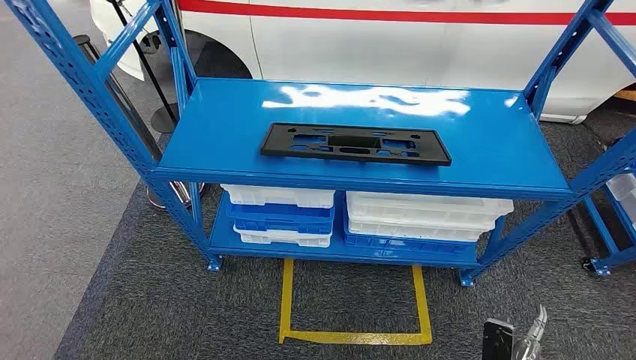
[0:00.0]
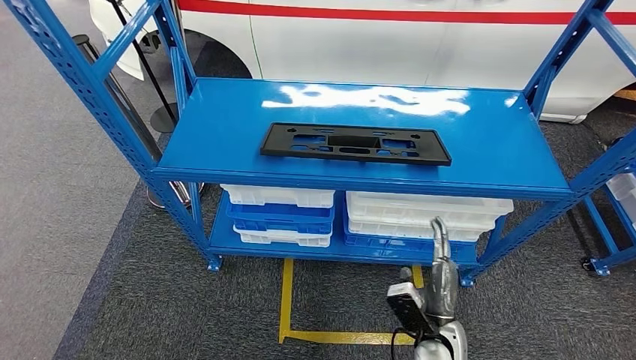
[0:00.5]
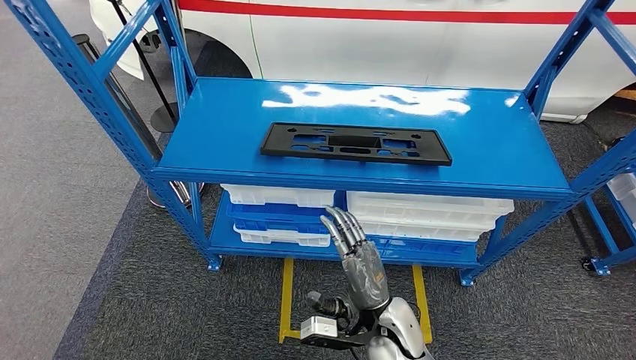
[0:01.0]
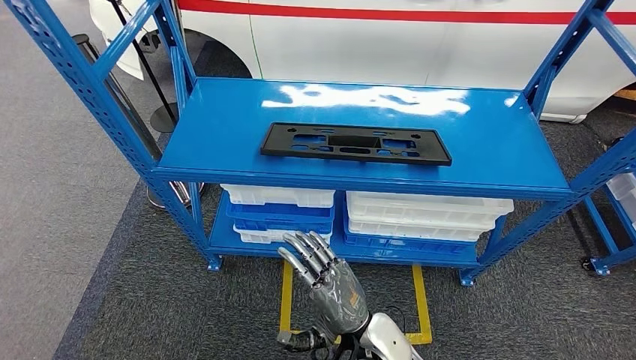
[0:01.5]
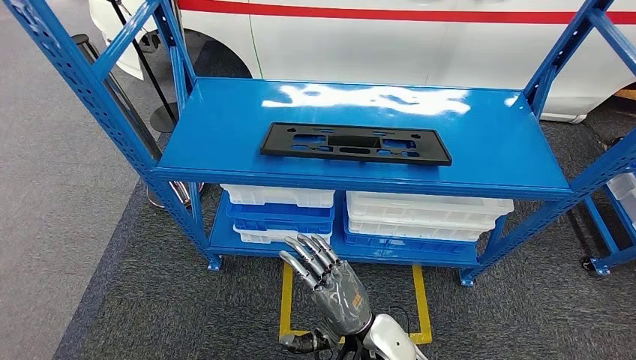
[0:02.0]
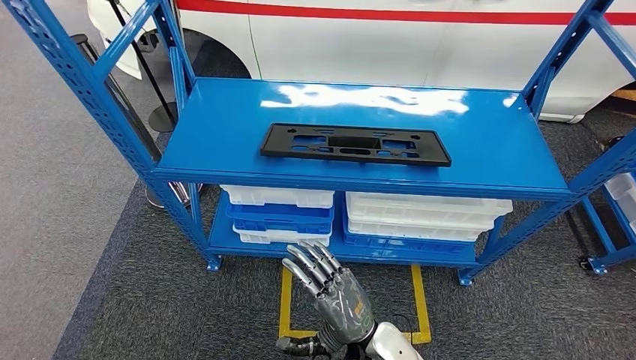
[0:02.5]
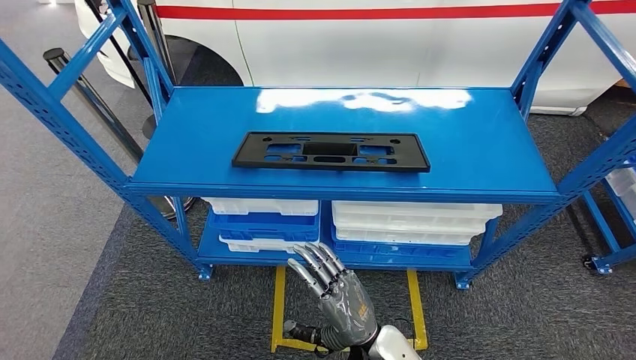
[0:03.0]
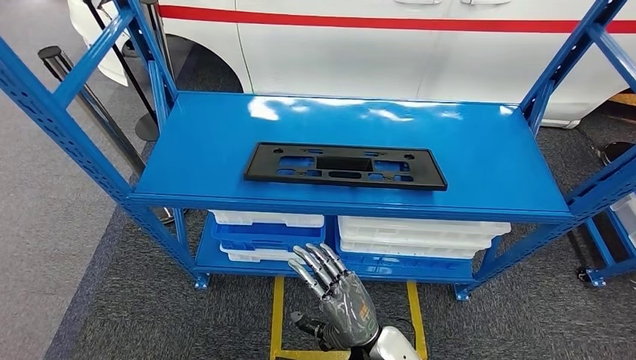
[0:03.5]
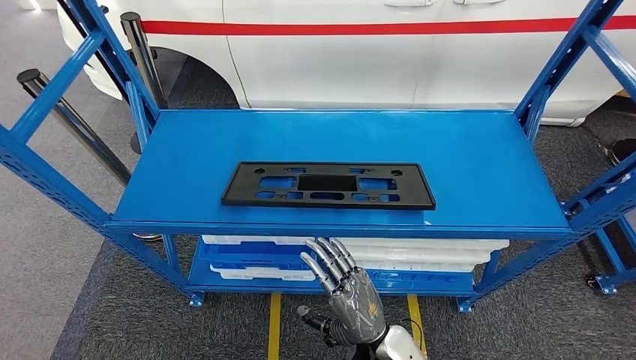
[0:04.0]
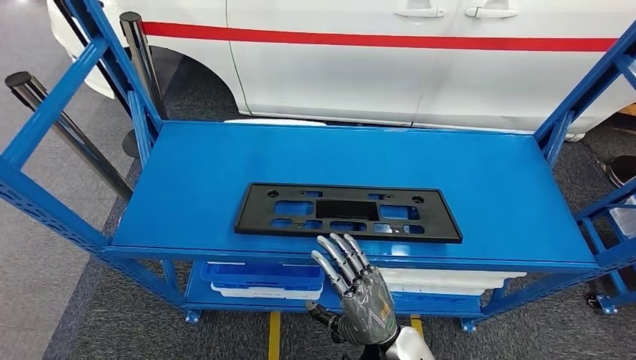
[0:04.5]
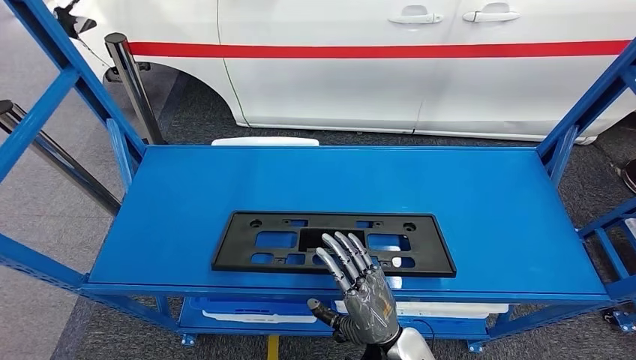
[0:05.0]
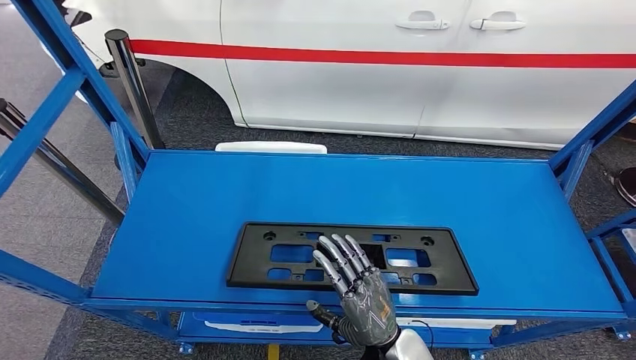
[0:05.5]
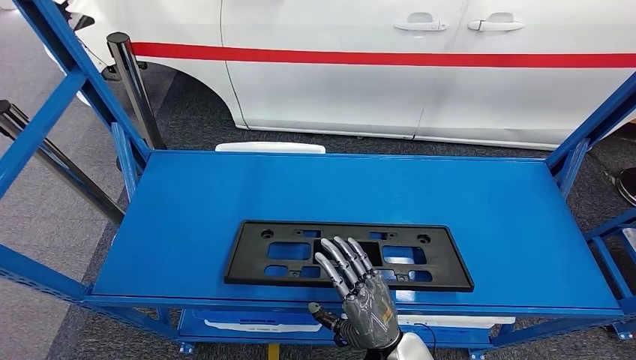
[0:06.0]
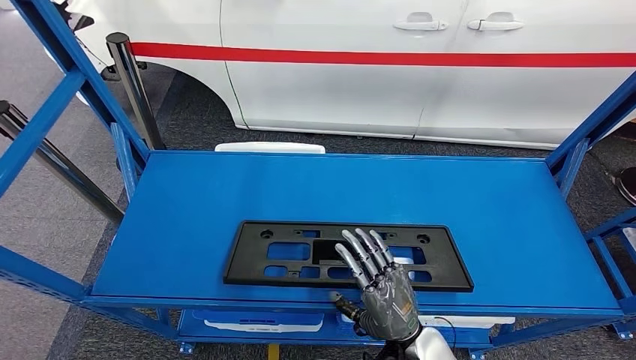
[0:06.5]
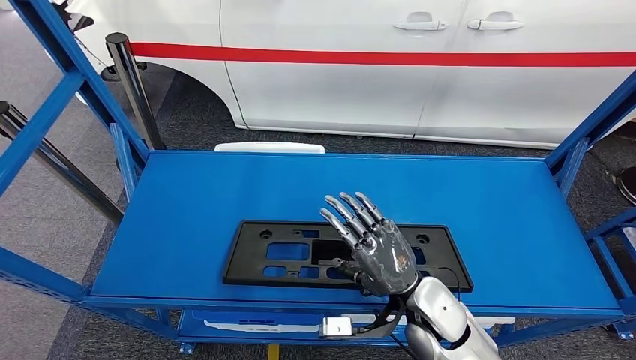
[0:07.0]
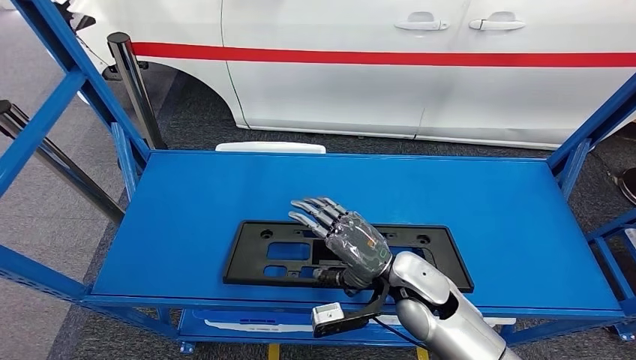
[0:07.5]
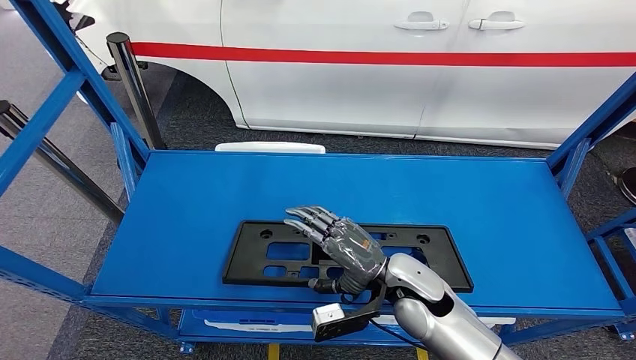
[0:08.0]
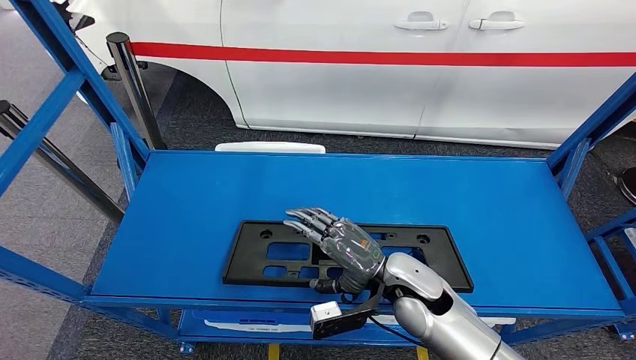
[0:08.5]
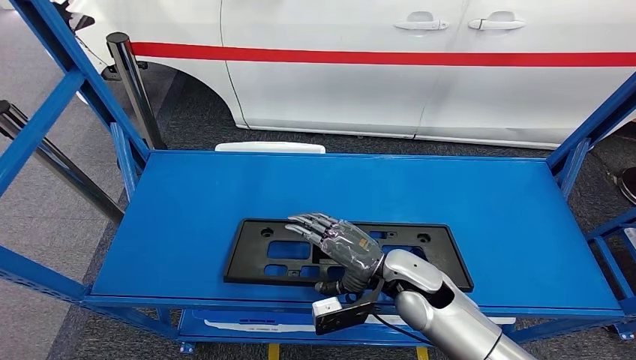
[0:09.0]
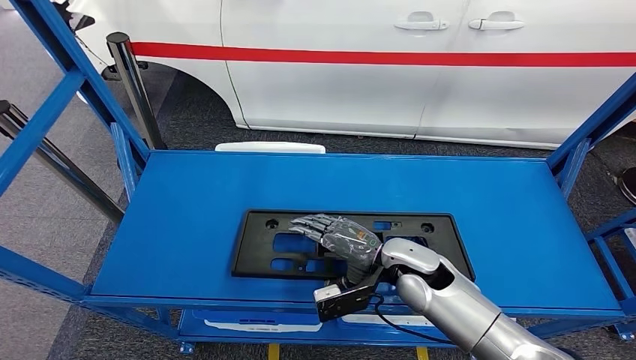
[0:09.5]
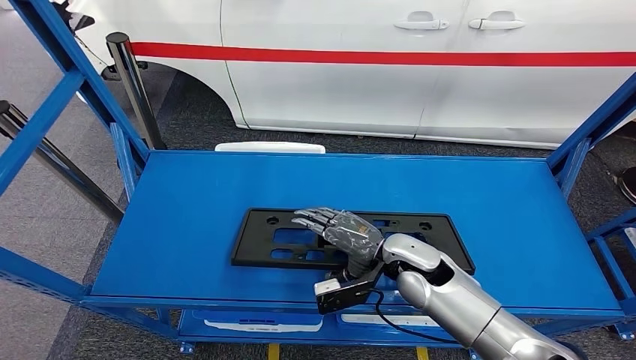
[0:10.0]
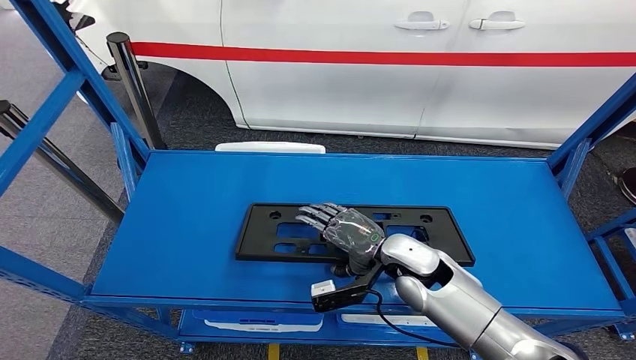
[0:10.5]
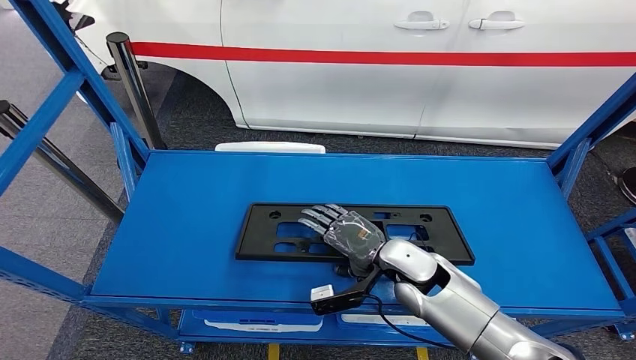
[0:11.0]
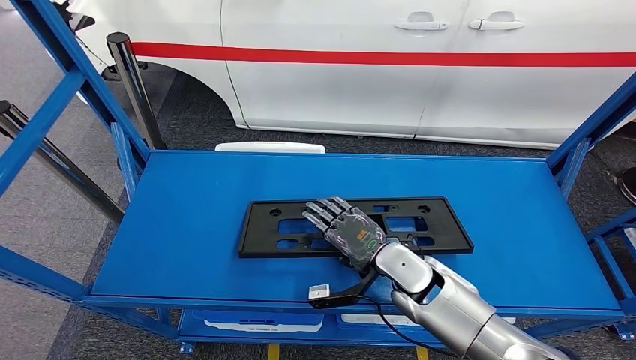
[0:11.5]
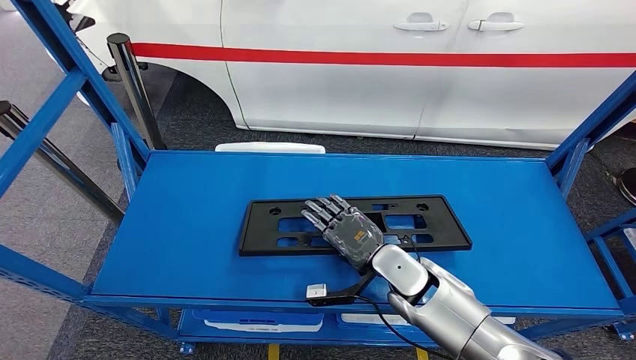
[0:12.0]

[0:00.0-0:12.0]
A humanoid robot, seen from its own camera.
0:06.0 to 0:08.0: The right hand heads forward and upward, covering some 10 cm.

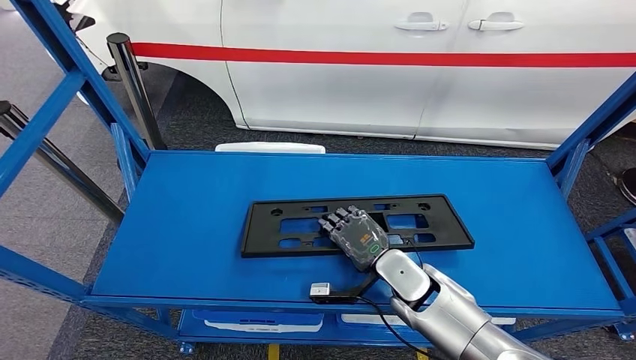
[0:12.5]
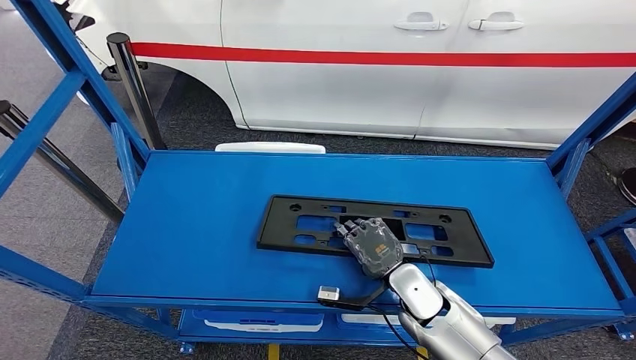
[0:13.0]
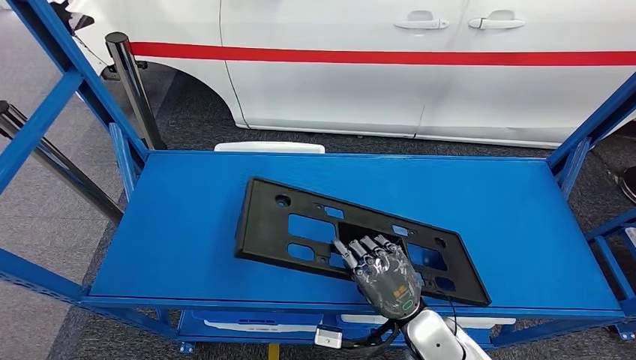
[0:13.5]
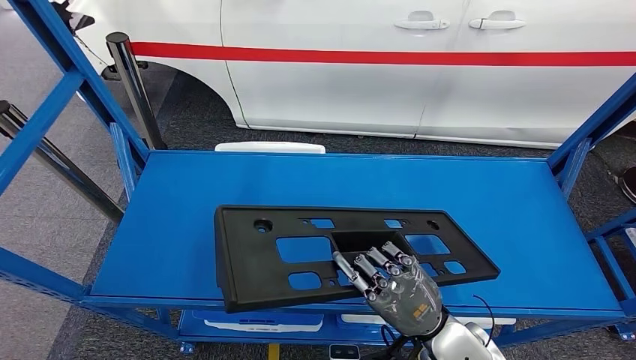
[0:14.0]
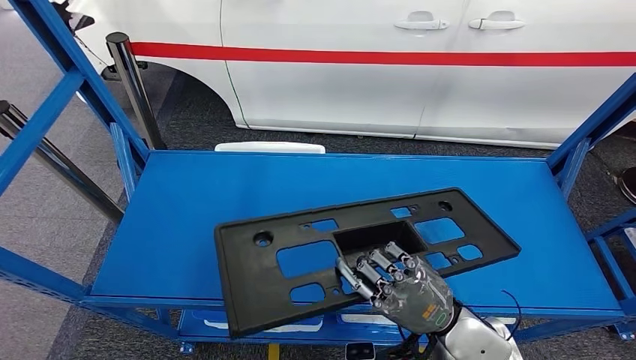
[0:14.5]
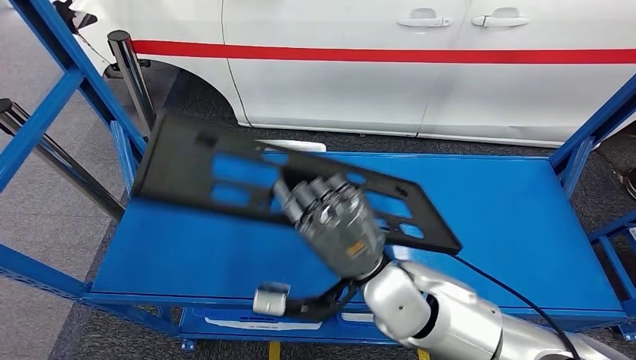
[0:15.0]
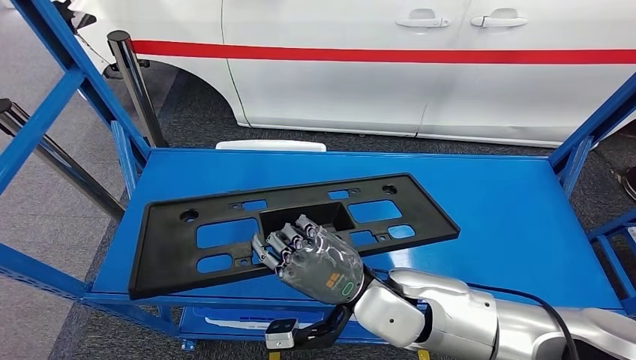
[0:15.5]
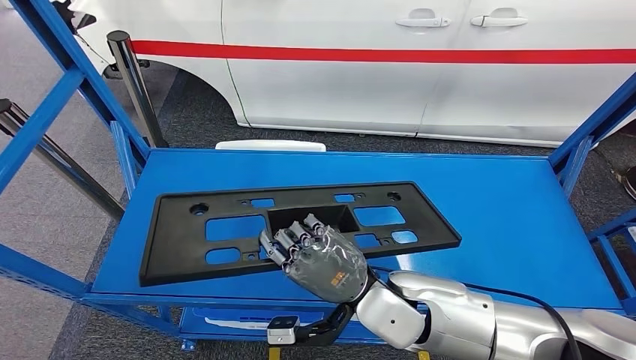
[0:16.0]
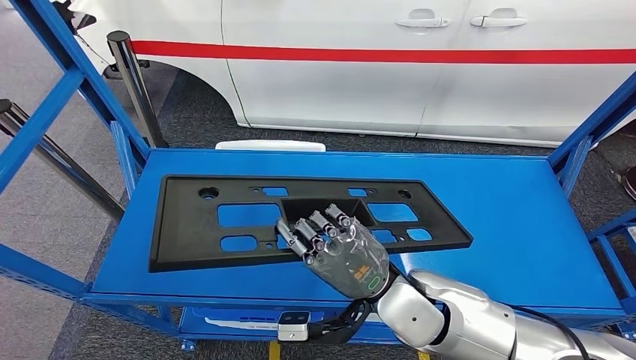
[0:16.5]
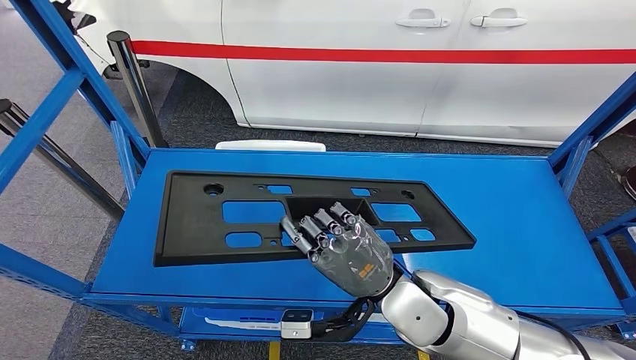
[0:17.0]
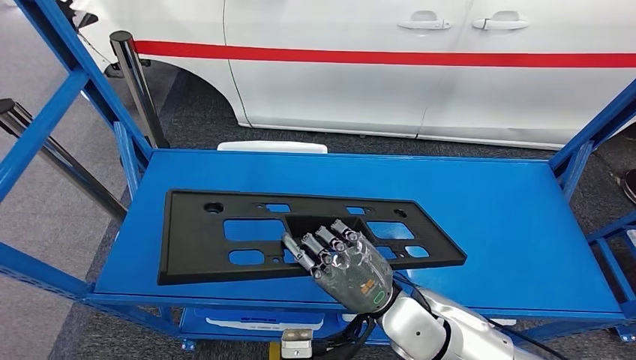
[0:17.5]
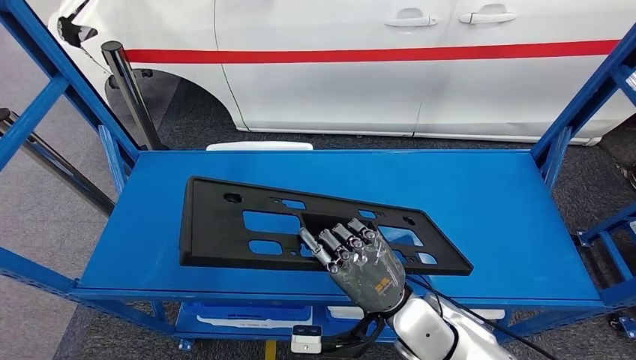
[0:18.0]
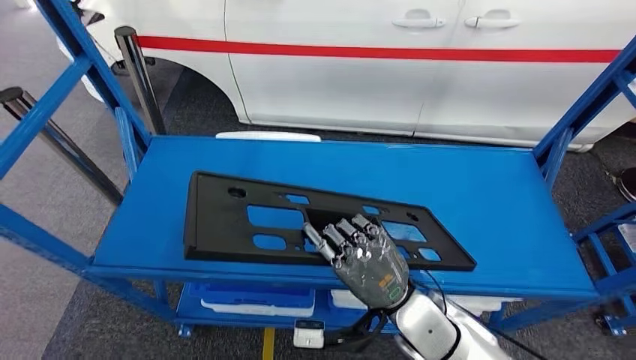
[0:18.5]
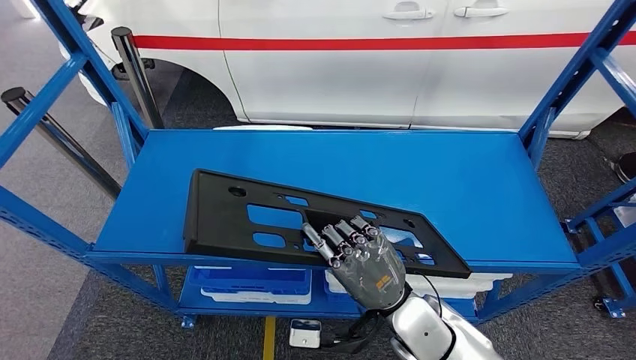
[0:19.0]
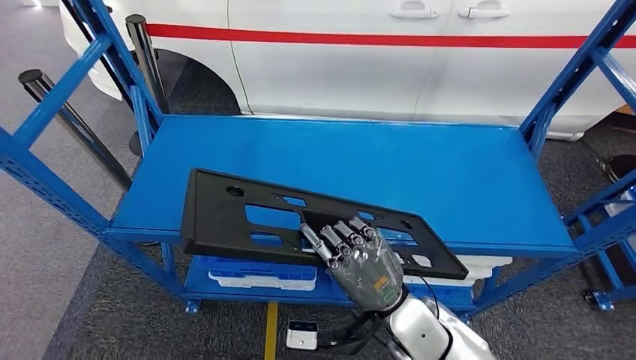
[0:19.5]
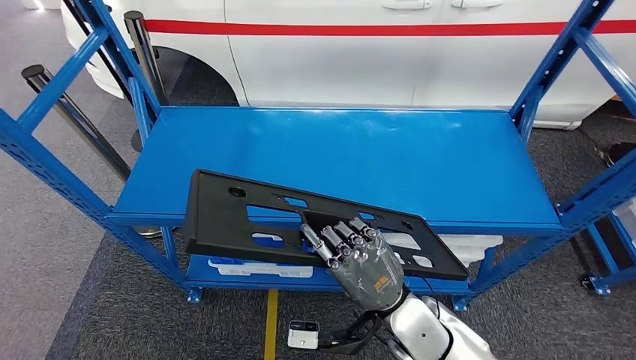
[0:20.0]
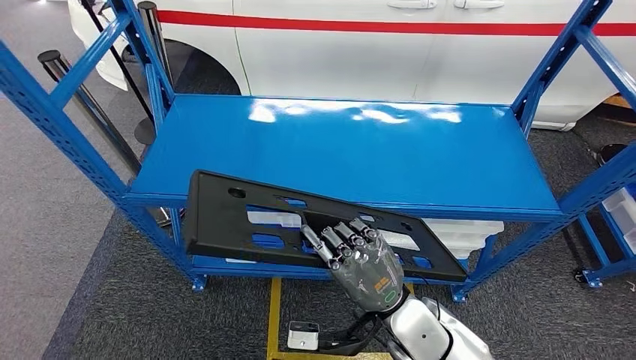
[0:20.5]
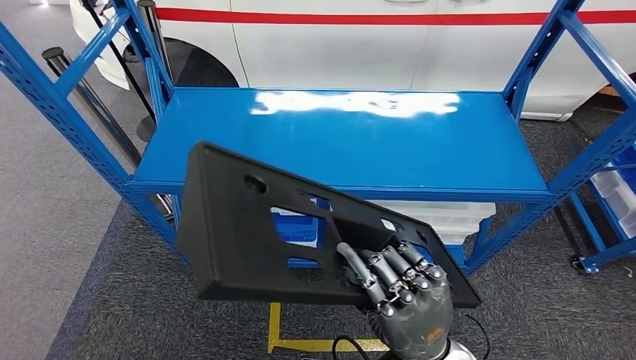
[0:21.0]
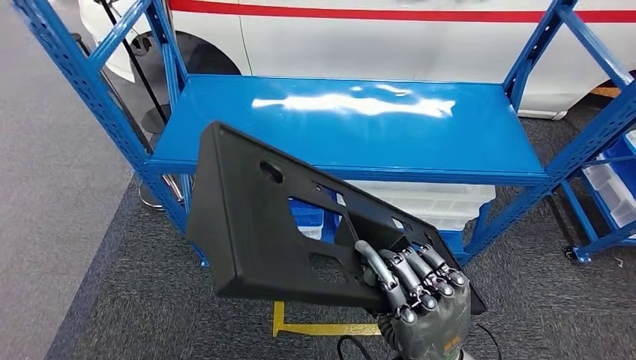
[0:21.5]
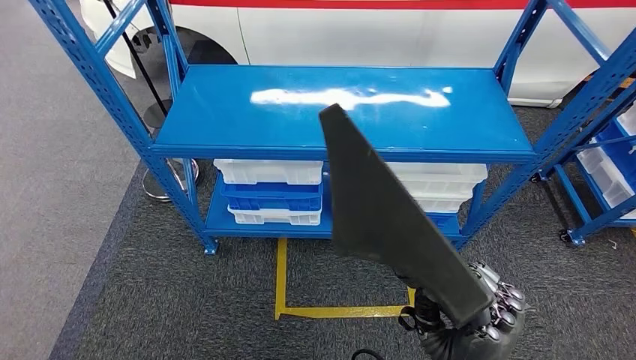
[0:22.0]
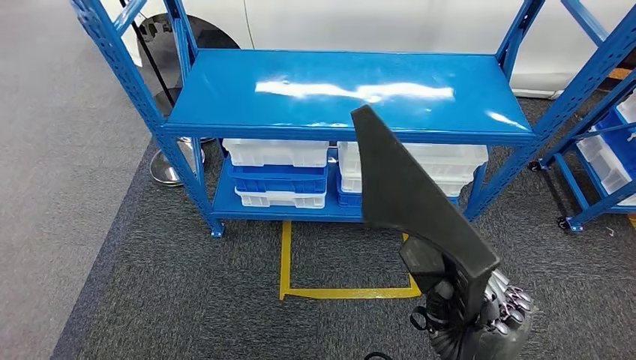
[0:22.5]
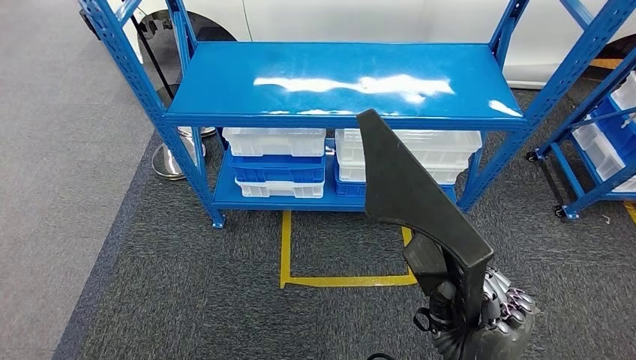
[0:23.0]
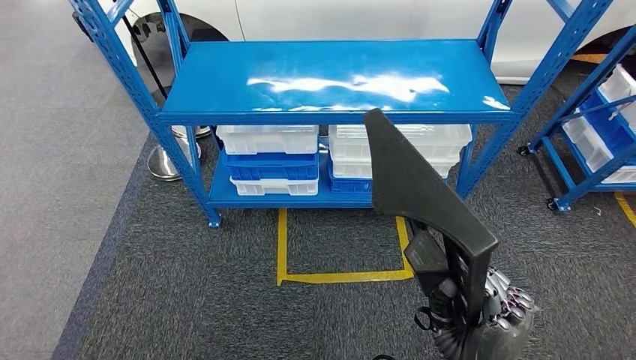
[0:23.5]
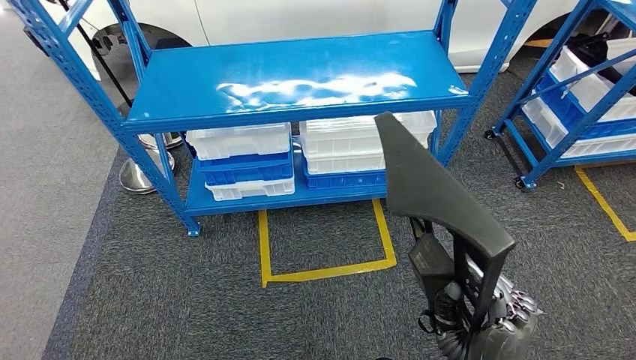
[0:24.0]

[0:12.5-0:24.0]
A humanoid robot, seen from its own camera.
0:12.5 to 0:14.5: The right hand goes about 15 cm backward, upward and to the right.
